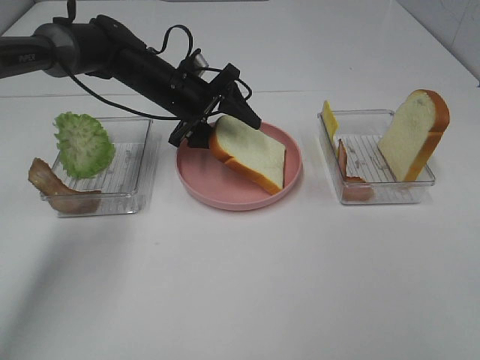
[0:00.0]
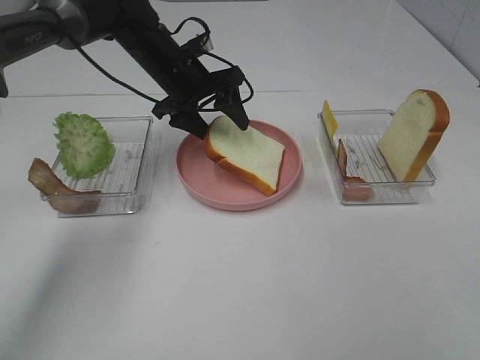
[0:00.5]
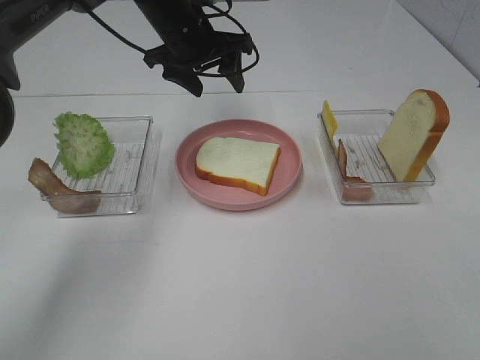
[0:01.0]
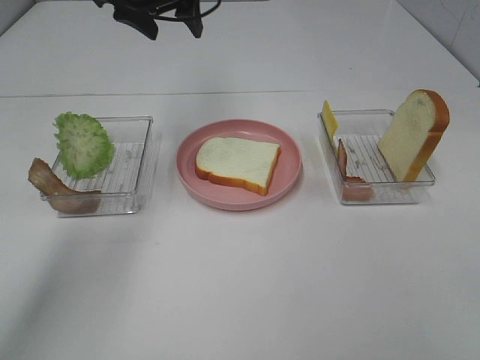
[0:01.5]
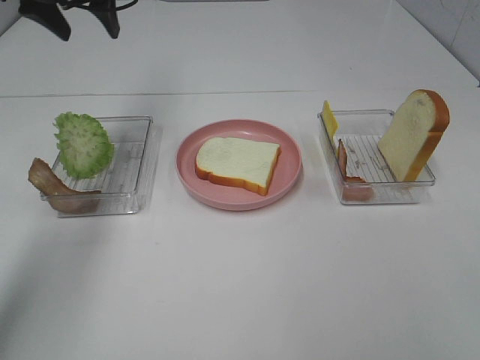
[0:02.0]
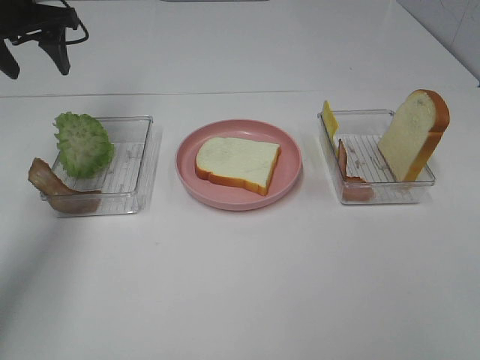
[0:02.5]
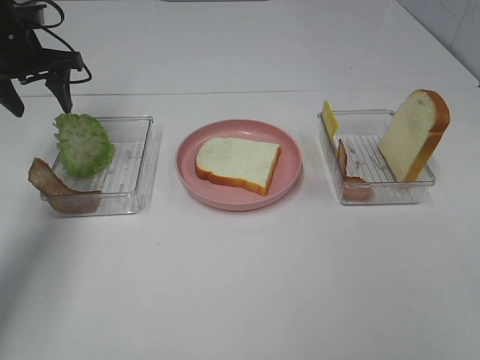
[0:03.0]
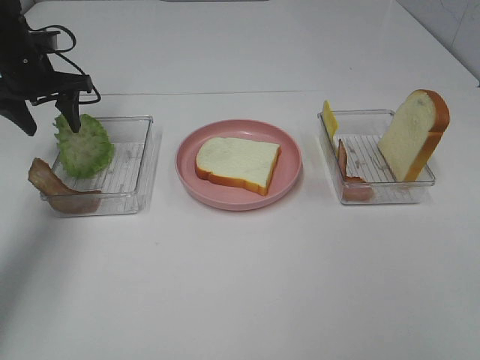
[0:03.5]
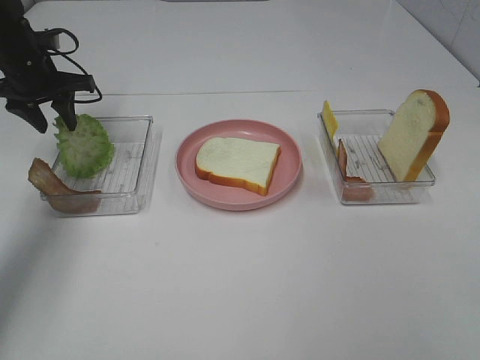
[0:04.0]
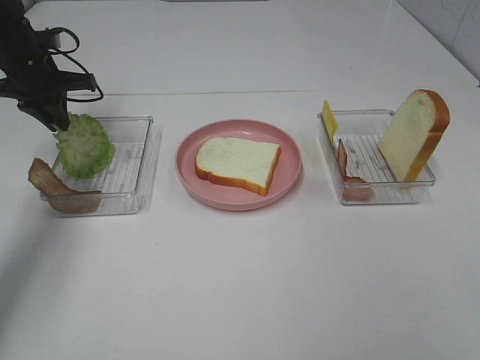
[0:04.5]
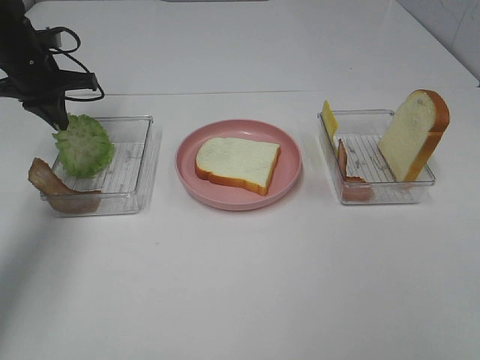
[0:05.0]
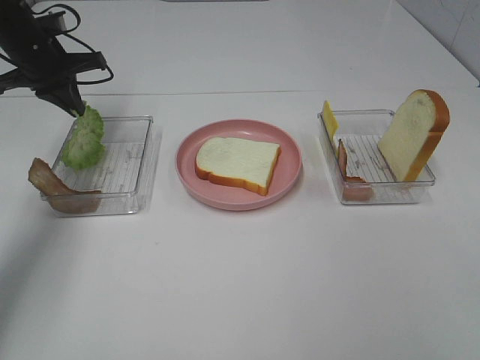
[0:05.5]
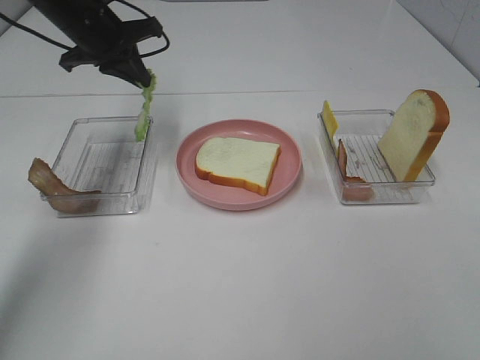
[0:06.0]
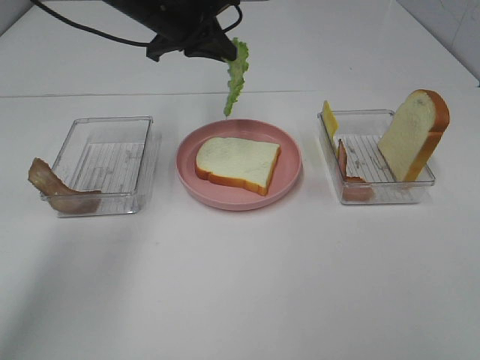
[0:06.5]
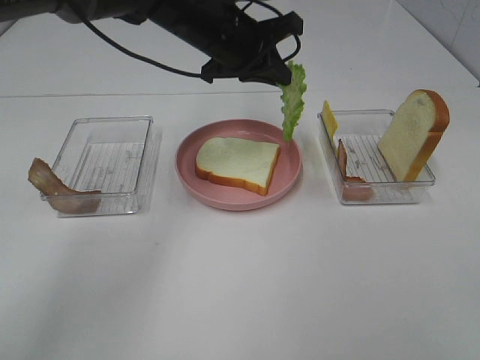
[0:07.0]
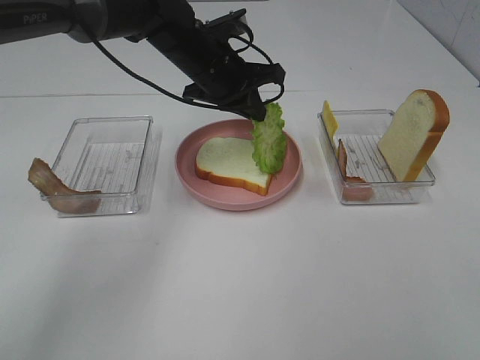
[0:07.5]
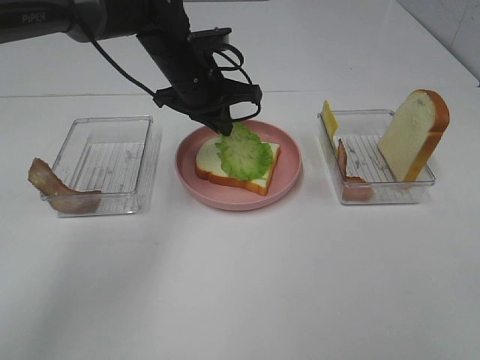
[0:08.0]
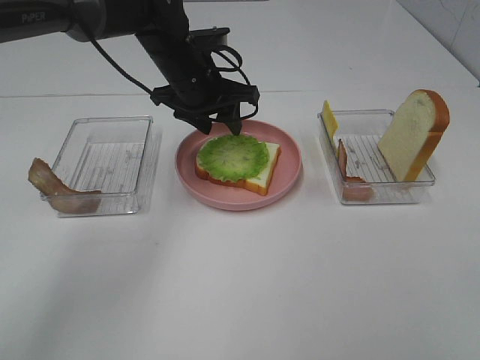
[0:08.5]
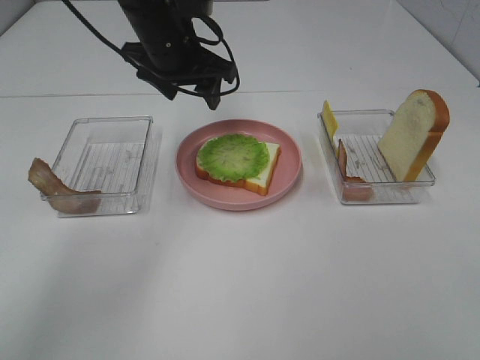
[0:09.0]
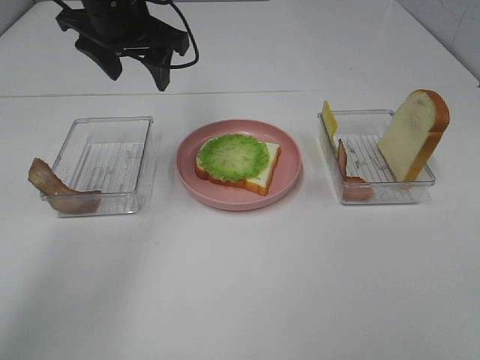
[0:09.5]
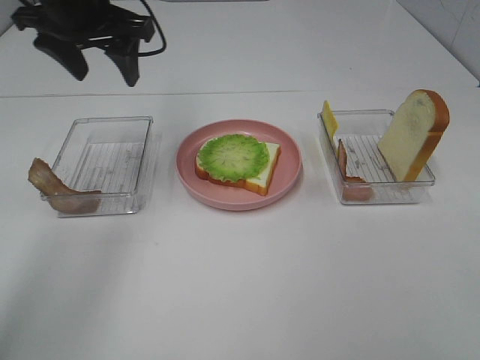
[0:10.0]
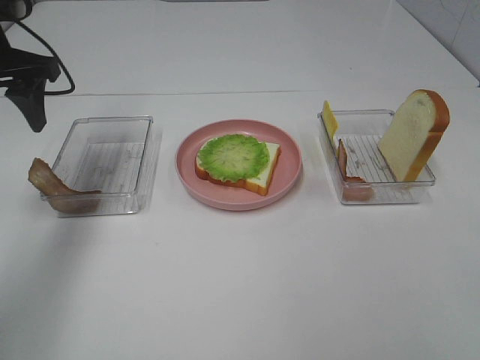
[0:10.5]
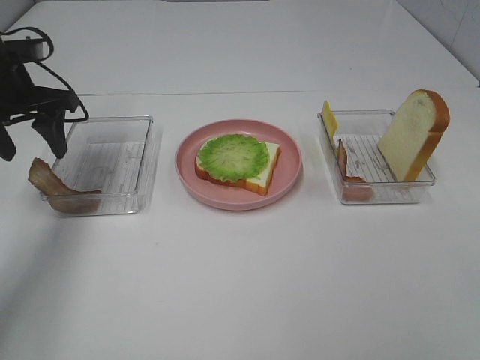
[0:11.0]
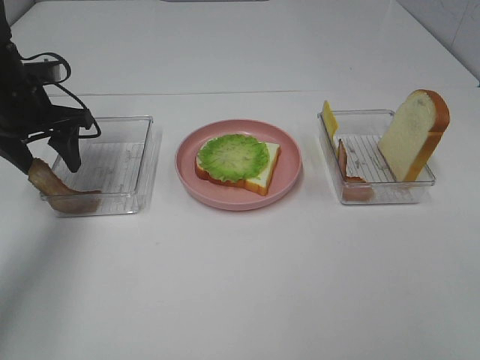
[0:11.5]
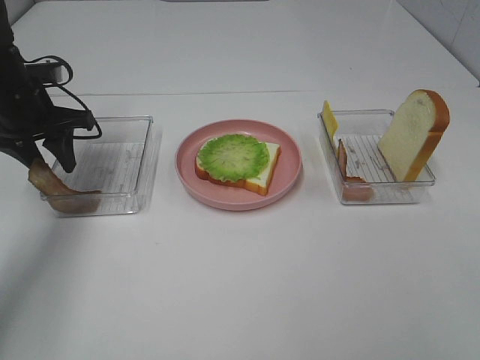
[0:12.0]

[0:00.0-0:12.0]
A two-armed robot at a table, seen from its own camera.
Task of the whole recording: Make sandwiches.
Step, 0:01.0 to 0:04.5: Left hand:grab the lettuce slice.
Step, 0:05.0 to 0:09.0: Left hand:place the lettuce slice on the bread slice.
0:00.0 to 0:02.0: The left gripper goes about 20 cm upward and to the left.
0:02.0 to 0:04.0: The left gripper heads downward and to the left, covering about 15 cm.
0:04.0 to 0:06.0: The left gripper is displaced to the right and upward by approximately 10 cm, and closes.
0:06.0 to 0:08.0: The left gripper is displaced to the right and downward by approximately 15 cm.
0:08.0 to 0:10.0: The left gripper heads upward and to the left, covering about 15 cm, and opens its fingers.
0:10.0 to 0:12.0: The left gripper is displaced downward and to the left by about 15 cm.

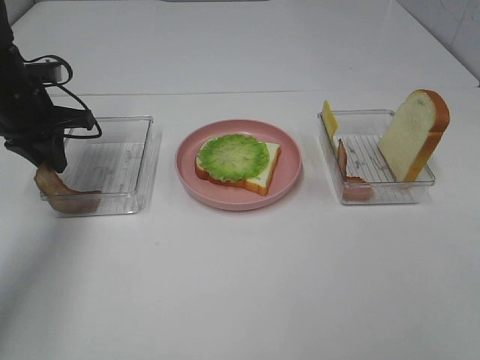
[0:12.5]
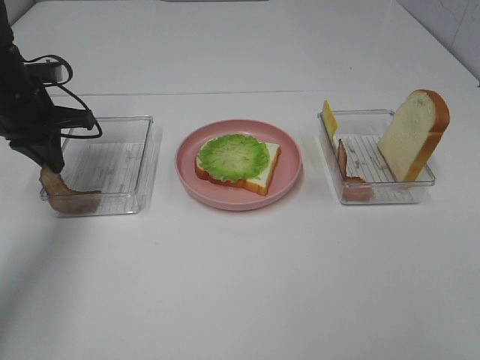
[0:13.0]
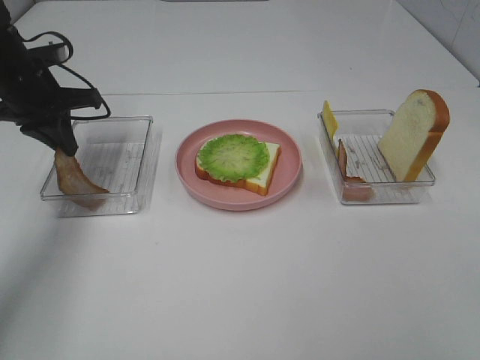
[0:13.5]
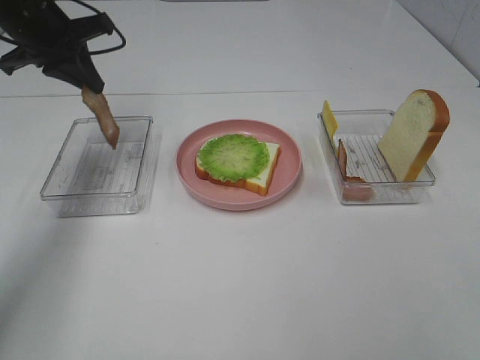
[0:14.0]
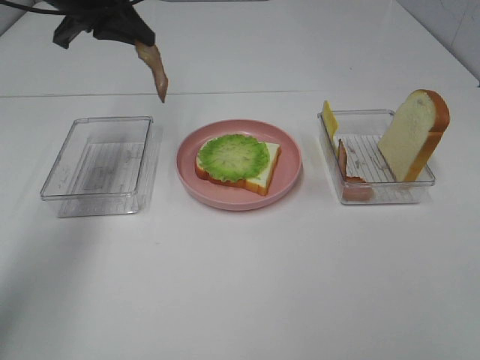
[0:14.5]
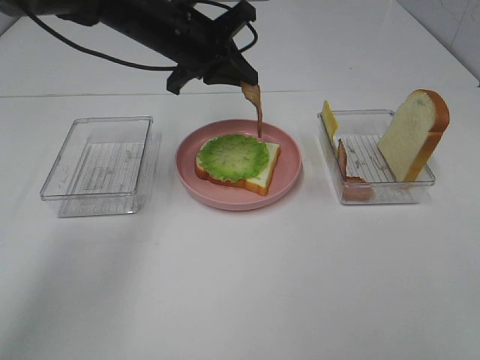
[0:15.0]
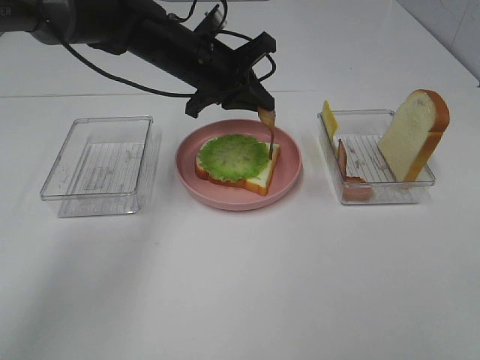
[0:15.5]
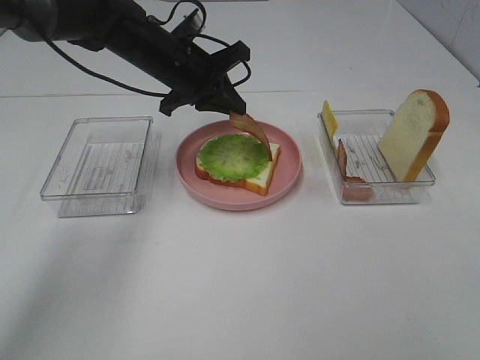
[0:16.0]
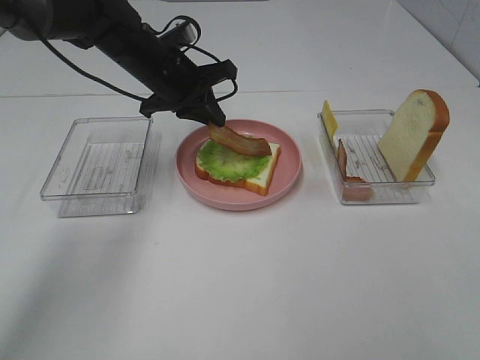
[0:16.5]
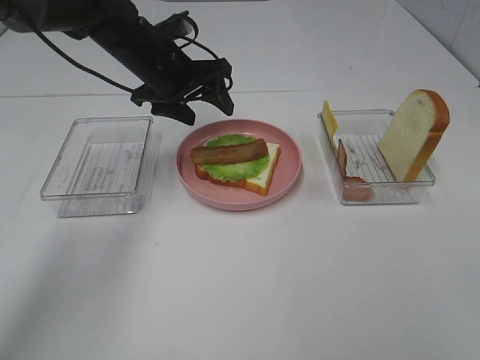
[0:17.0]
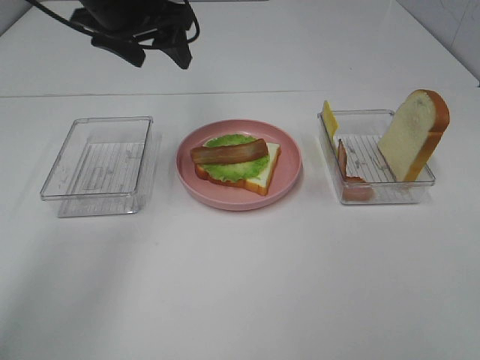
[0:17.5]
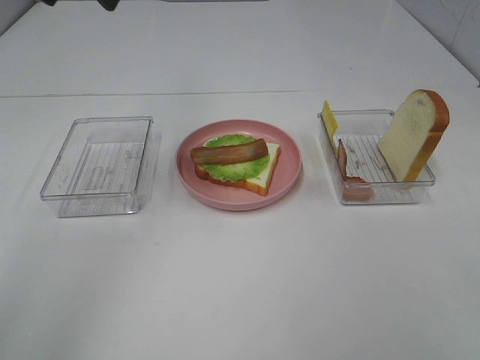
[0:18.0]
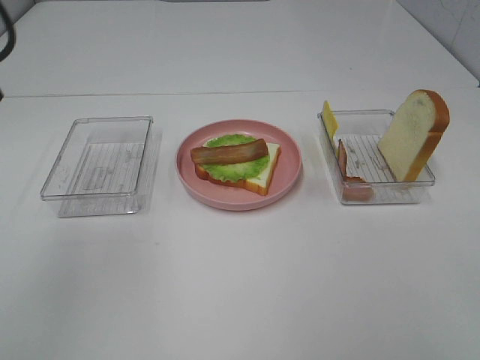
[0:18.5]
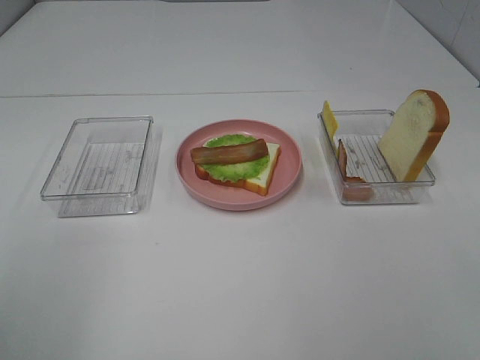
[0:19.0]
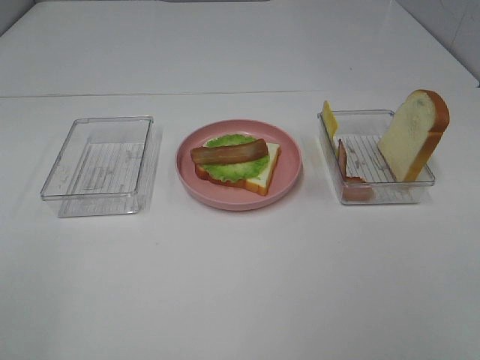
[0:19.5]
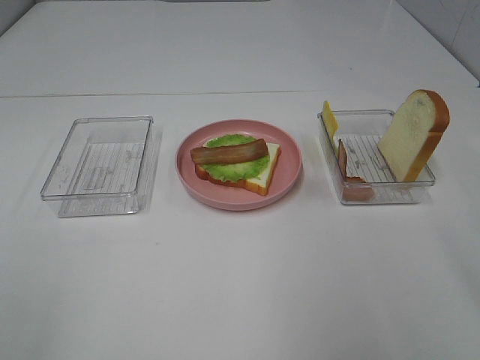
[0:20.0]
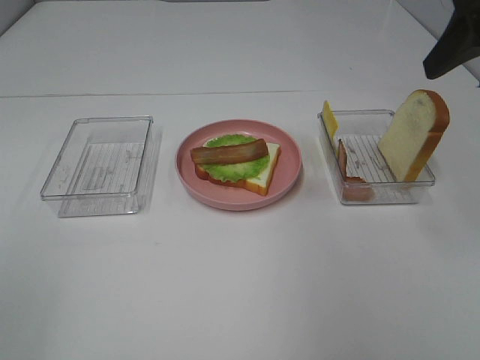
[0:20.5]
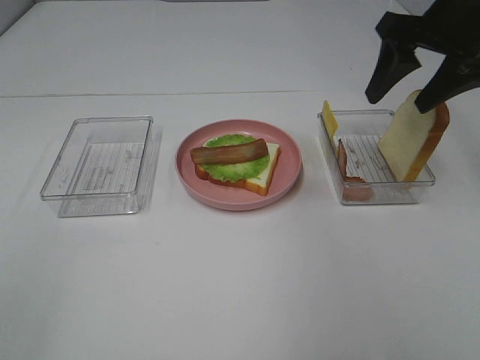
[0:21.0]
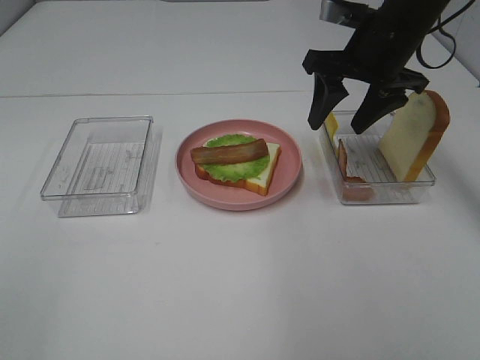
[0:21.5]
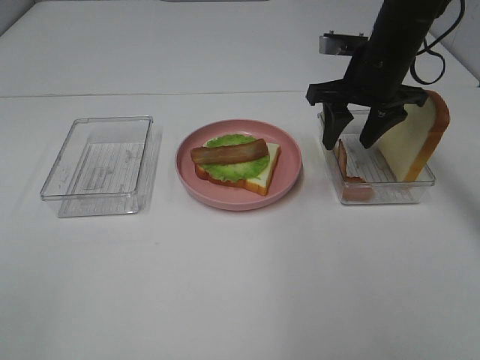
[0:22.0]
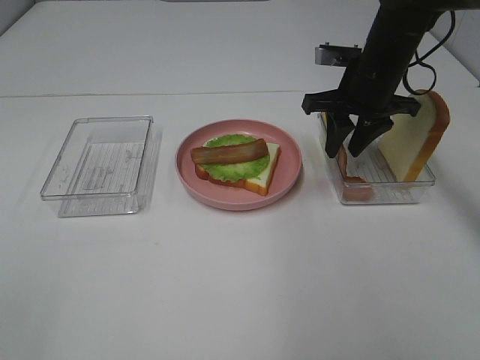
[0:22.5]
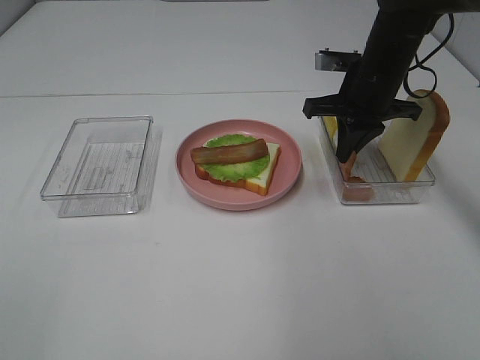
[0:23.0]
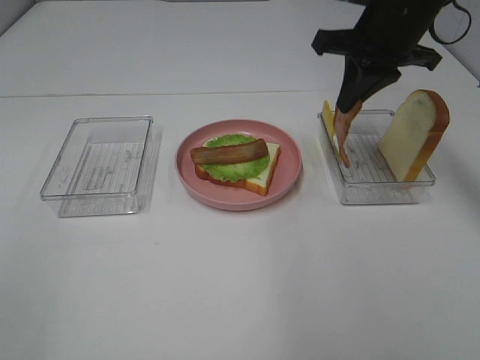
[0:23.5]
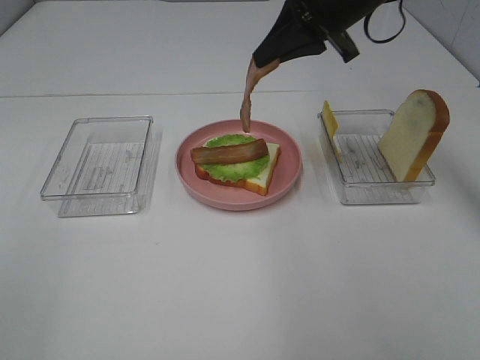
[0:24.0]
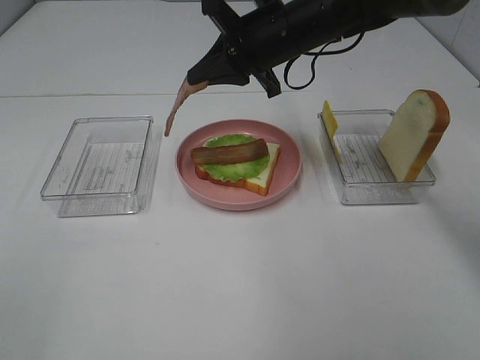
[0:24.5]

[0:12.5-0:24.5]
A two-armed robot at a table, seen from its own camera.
Task of the whole recording: Make sandwiches.
Step, 0:13.0 to 0:17.0: Left hand:place bacon on lettuce slice.
Step, 0:17.5 to 0:22.5: Right hand:grab the bacon.
0:12.5 to 0:14.5: The left gripper heads upward and to the right, covering some 15 cm.
0:14.5 to 0:16.5: The left gripper travels downward and to the right by approximately 15 cm.
0:16.5 to 0:18.5: The left gripper travels backward, upward and to the left by some 35 cm, and opens up.
0:18.5 to 0:20.5: The right gripper is displaced forward by about 30 cm.
0:20.5 to 0:22.5: The right gripper is displaced downward, forward and to the left by about 20 cm, and closes its fingers.
0:22.5 to 0:24.5: The right gripper moves to the left, approximately 10 cm, and closes its fingers.

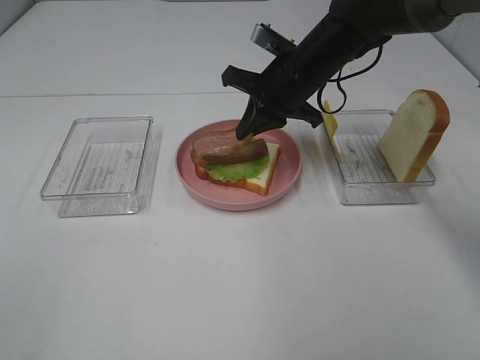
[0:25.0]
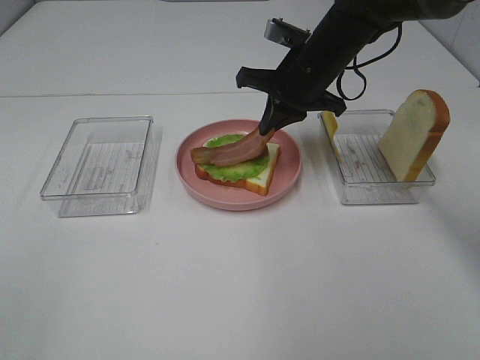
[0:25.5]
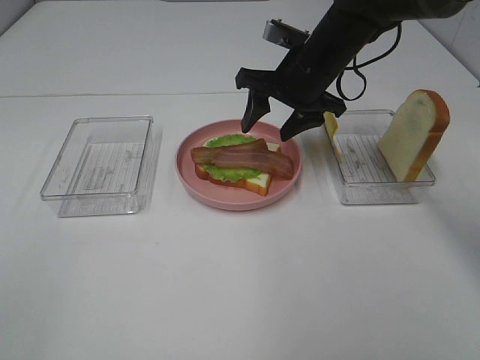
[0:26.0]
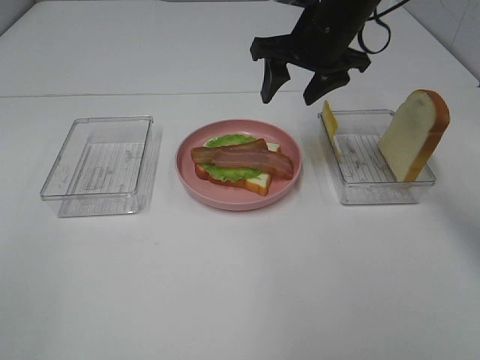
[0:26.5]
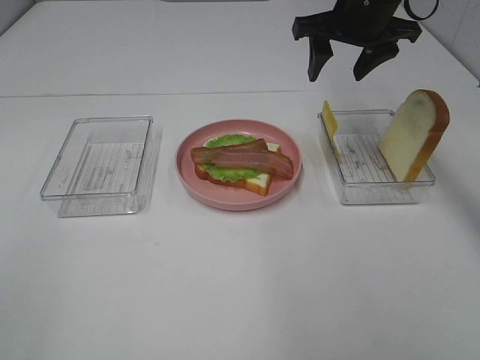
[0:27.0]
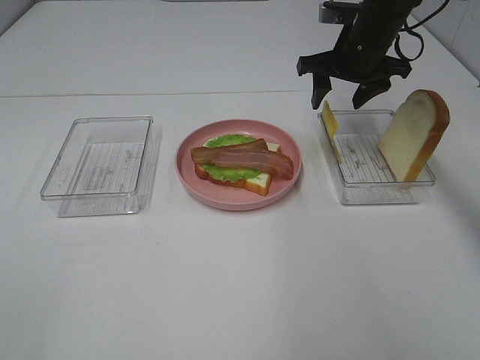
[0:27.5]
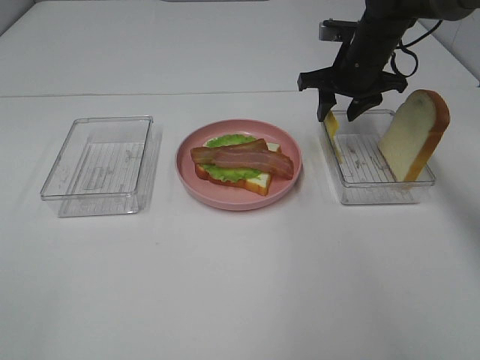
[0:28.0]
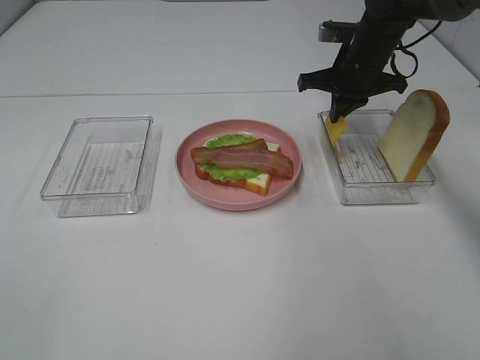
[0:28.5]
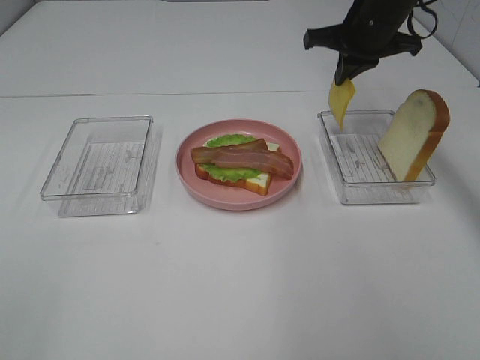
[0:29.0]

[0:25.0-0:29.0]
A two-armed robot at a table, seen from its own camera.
Task of the whole recording: Make sandwiches.
Step, 0:26.5 to 0:28.5: Right hand:grab the cheese slice.
0:25.0 to 0:27.0: The right gripper is displaced upward and to the right by approximately 10 cm, and opens.
0:27.0 to 0:29.0: The right gripper reaches roughly 10 cm downward, then returns, and closes.
